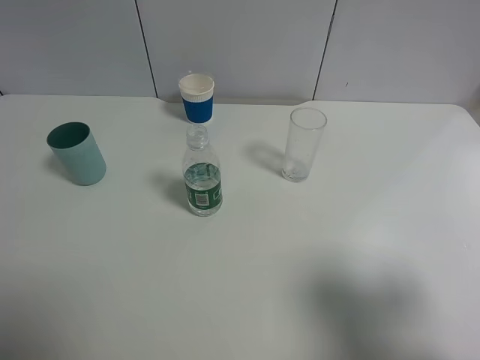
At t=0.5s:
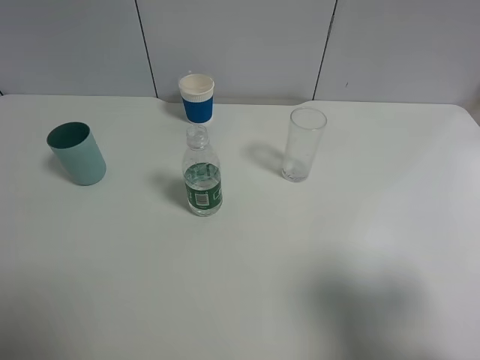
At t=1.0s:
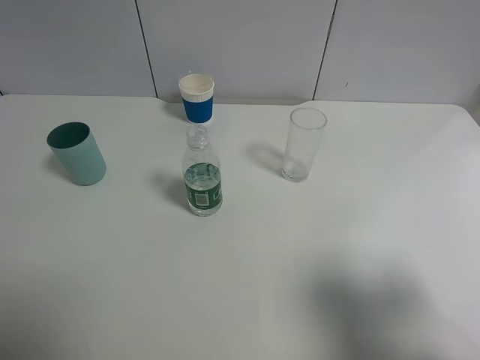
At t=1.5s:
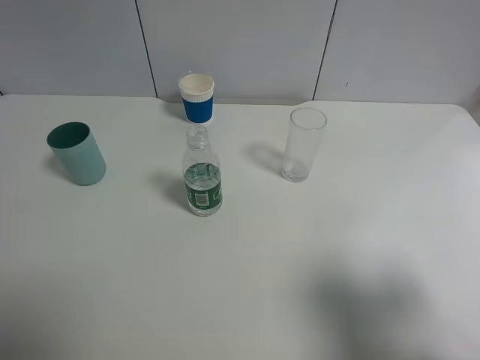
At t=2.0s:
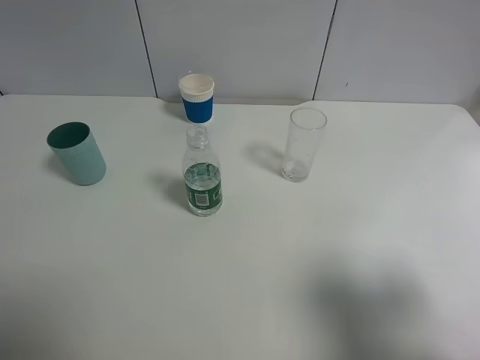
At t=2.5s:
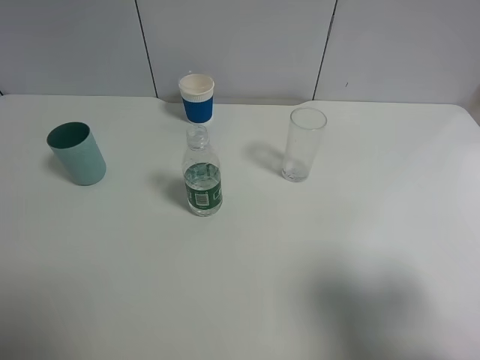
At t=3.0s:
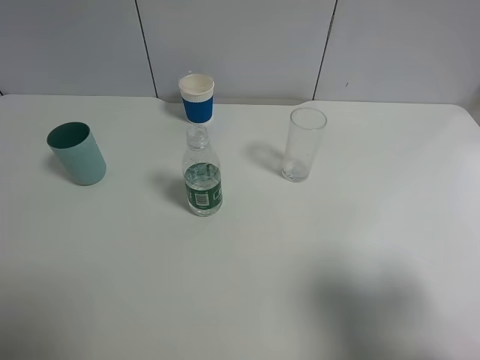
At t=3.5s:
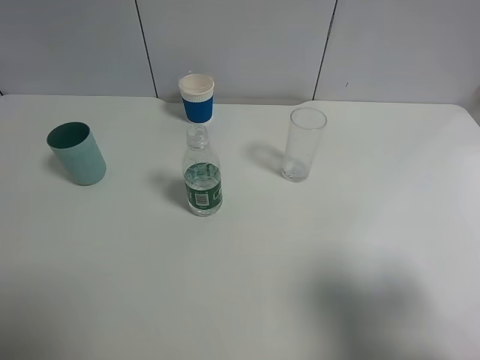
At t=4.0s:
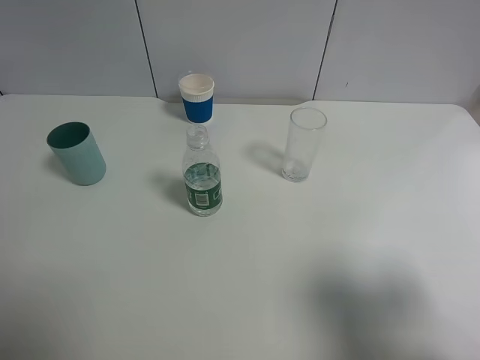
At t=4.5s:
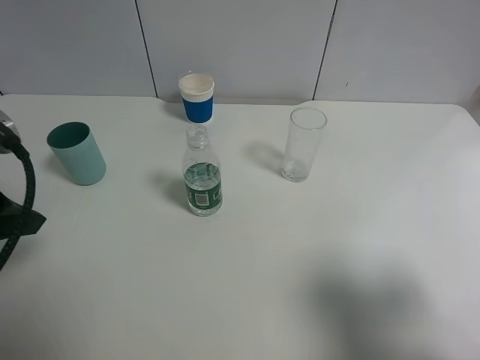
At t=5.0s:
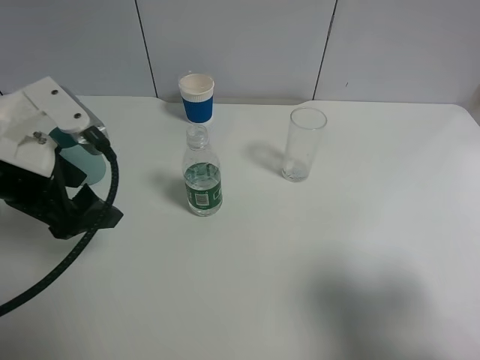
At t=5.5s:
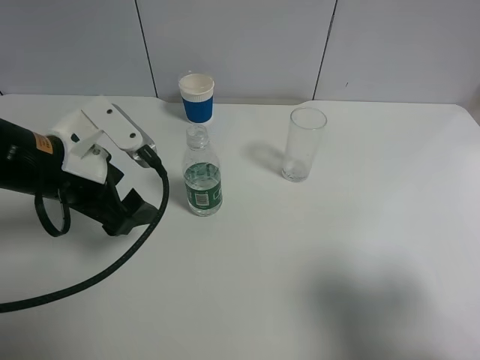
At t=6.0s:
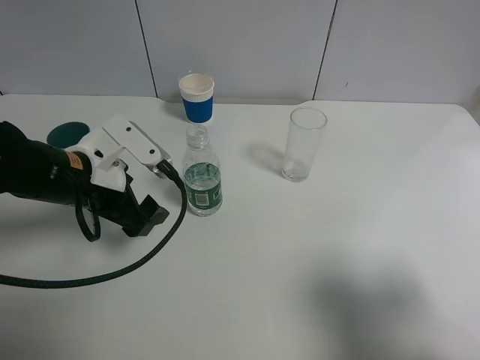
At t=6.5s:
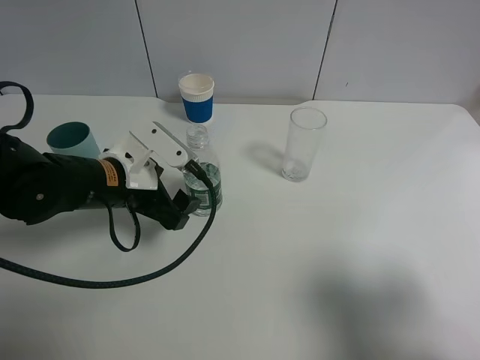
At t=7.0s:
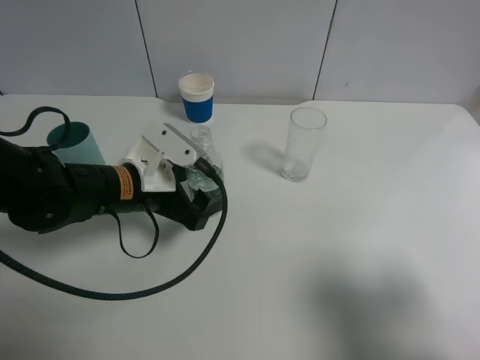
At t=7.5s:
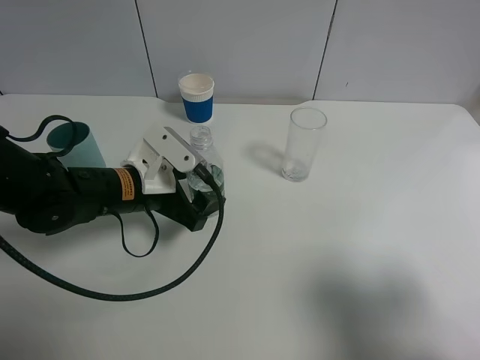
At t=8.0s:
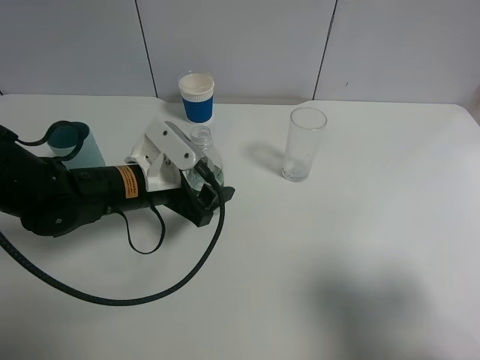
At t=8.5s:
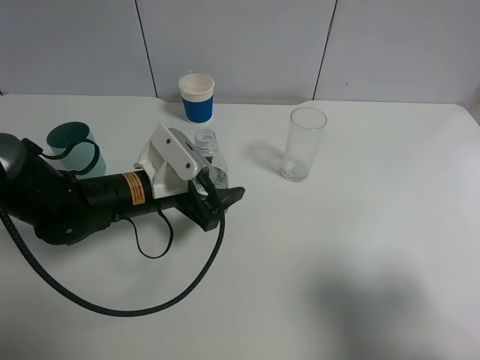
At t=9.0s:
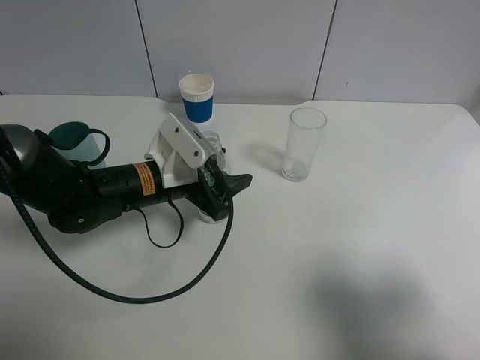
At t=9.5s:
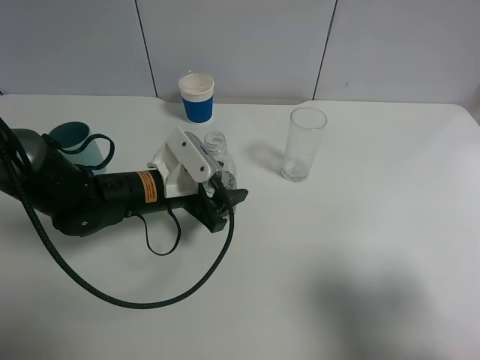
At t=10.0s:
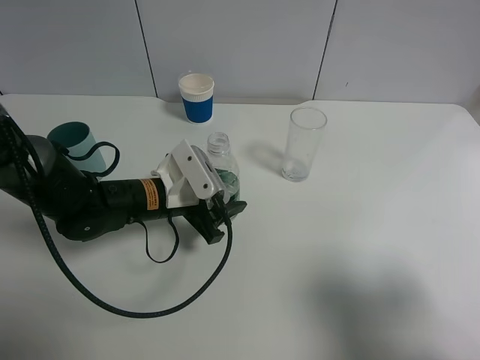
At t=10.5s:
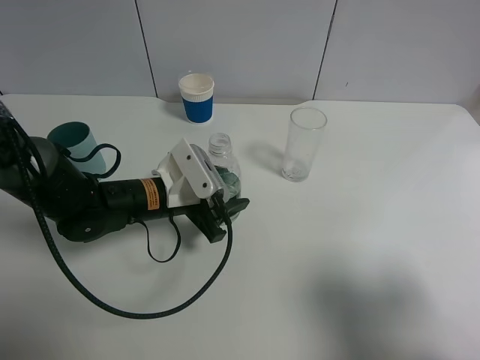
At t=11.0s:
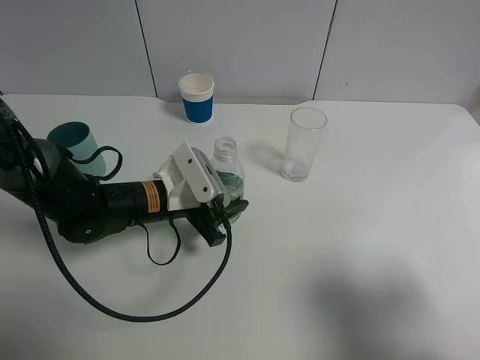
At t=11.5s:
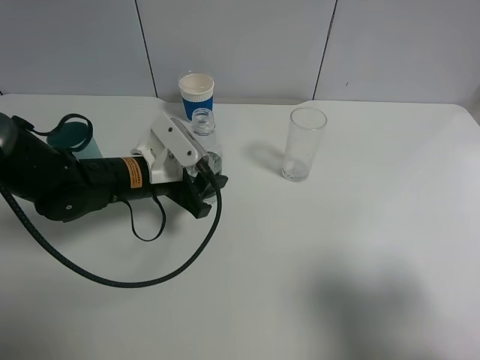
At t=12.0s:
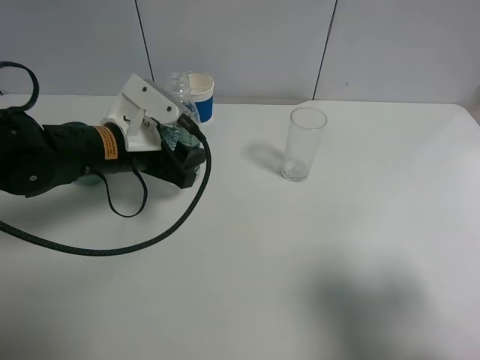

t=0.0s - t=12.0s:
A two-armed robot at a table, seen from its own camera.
Task of the whole recording: use a gripper to hold the bottle of the drink and pour it into a random cup.
Step, t=0.0s - t=10.5s: Grasp the mineral water bottle with the left gripper.
t=0.0s - t=2.0s: The two grippers keep their place.
t=4.0s - t=6.0s: The left gripper is displaced to the right, downward and forward by some 20 cm.
t=6.0s - t=8.0s: The left gripper shifts about 5 cm to the right.
t=8.0s - t=10.0s: The grippers make only small movements.
t=10.0s - t=12.0s: The left gripper goes some 10 cm upward.

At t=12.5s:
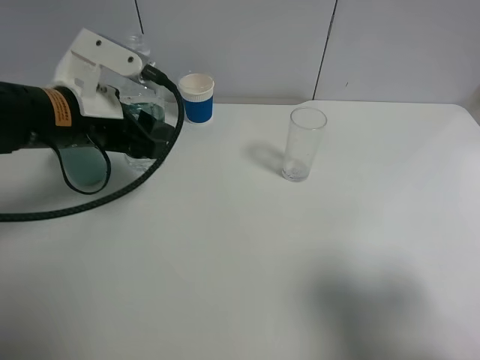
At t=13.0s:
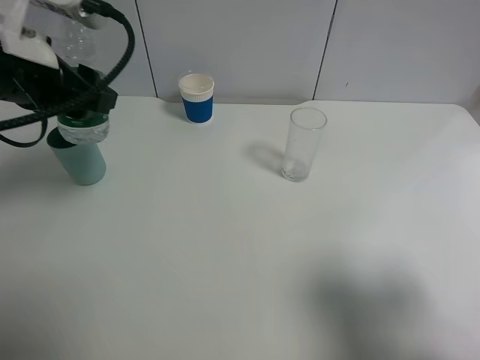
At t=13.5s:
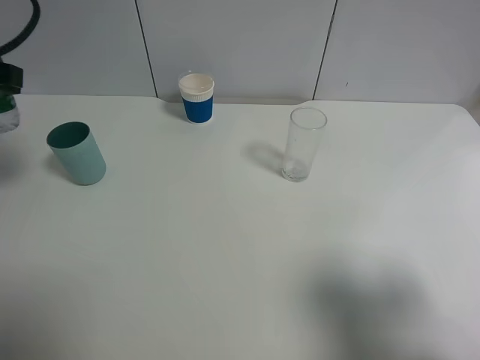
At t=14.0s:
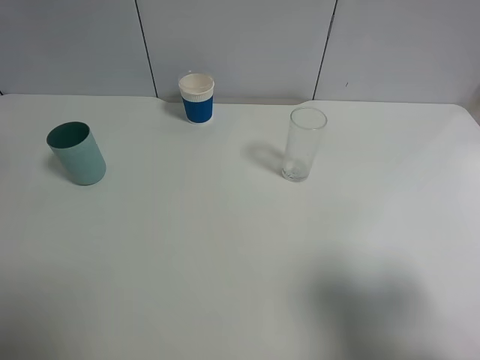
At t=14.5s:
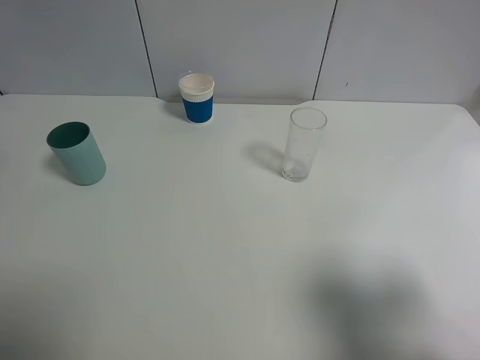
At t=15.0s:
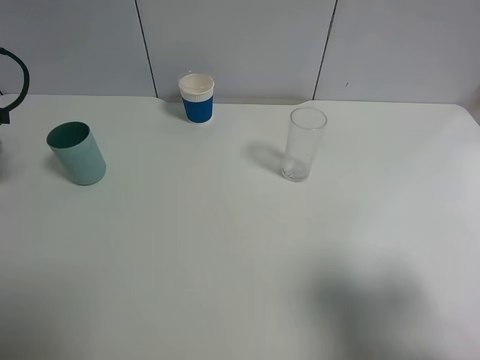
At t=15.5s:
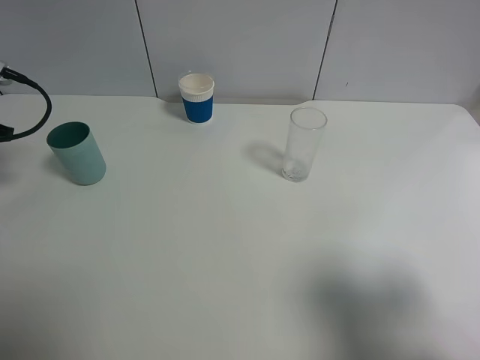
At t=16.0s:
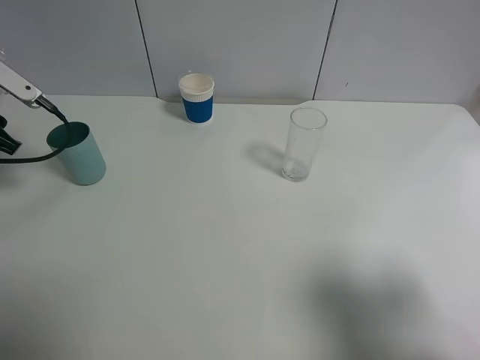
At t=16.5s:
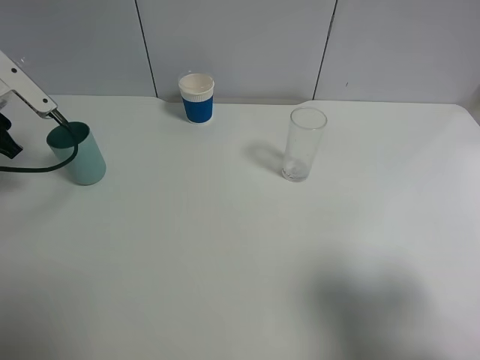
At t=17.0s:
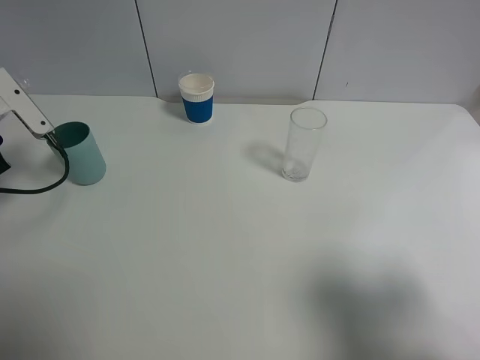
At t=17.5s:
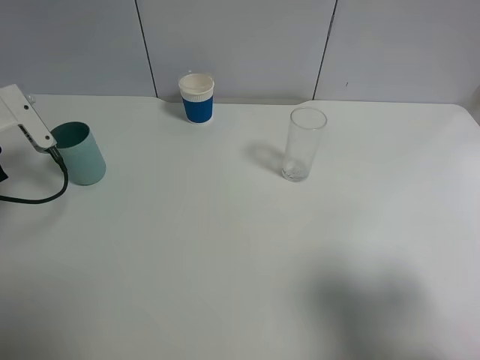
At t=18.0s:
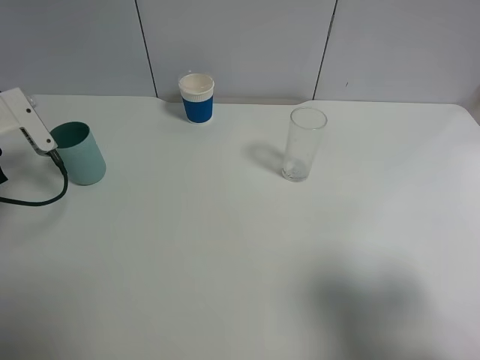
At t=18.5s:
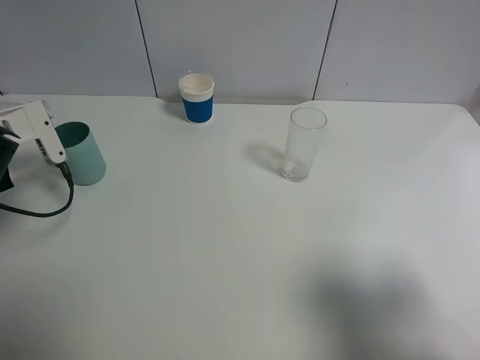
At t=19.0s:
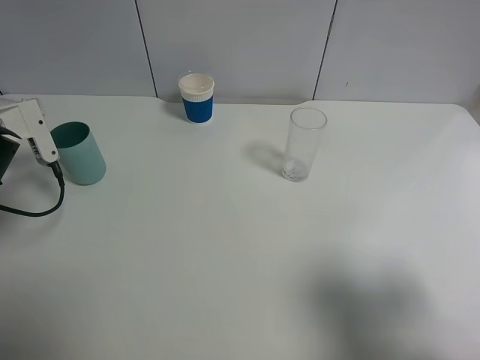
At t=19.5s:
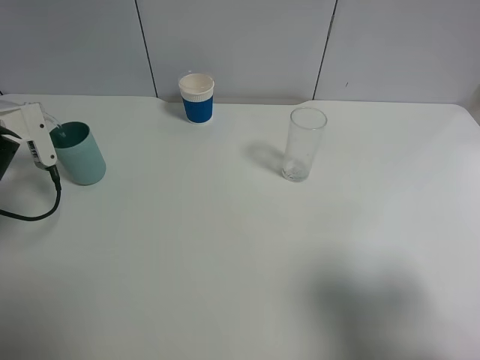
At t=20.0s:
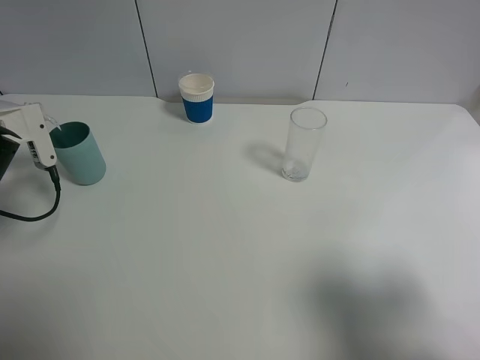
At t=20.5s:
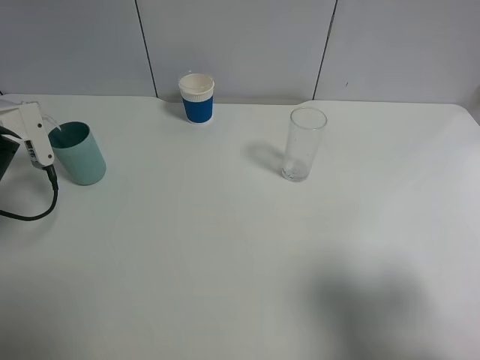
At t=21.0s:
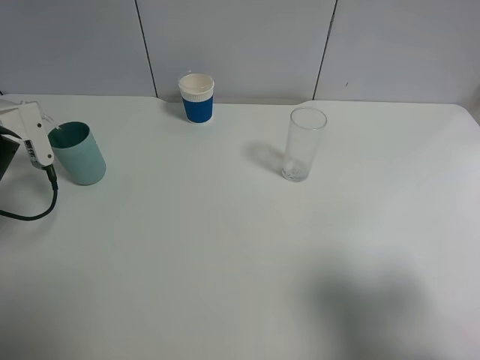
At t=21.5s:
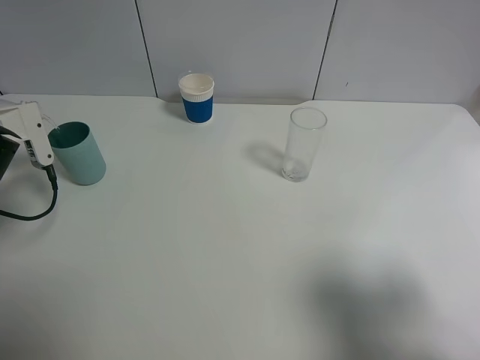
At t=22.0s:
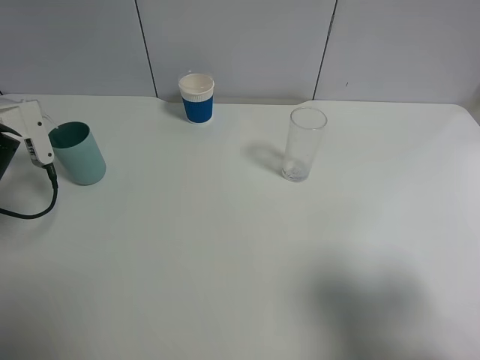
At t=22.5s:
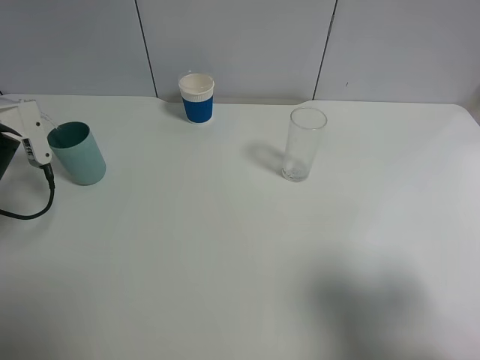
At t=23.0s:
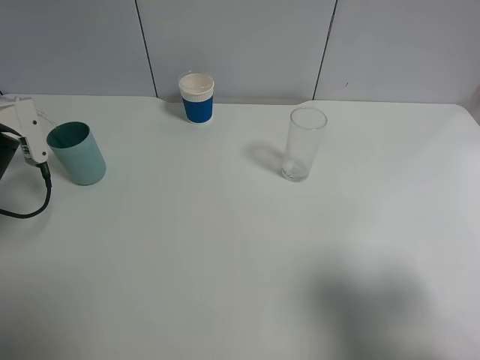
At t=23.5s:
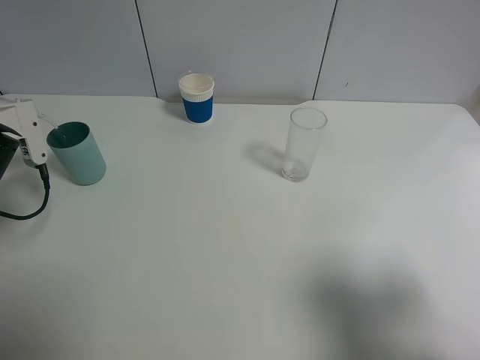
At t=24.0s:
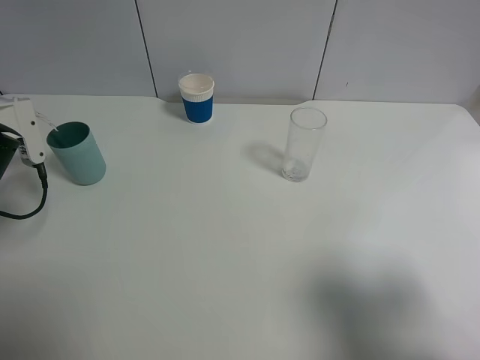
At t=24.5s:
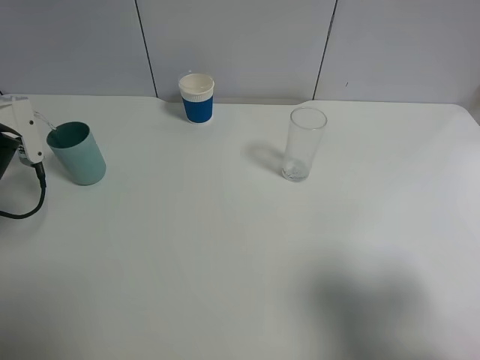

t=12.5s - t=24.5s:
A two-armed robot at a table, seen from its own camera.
Task of the whole recording: use a gripper to hold the bottle of the drink and pour it into a random cup.
t=12.5s - t=14.5s: The left gripper goes approximately 20 cm to the left.
t=14.5s - t=16.5s: The left gripper goes roughly 5 cm downward.
t=18.5s - t=20.5s: The grippers move only a little.
t=20.5s - t=22.5s: Both grippers stay put.
t=22.5s - t=24.5s: Neither gripper changes place.

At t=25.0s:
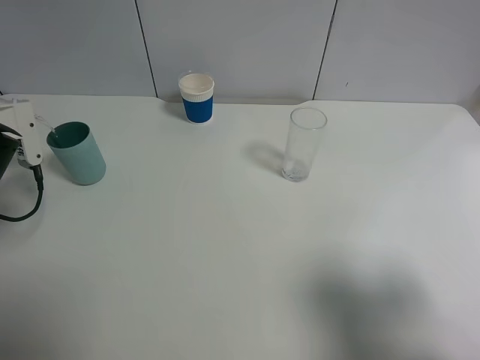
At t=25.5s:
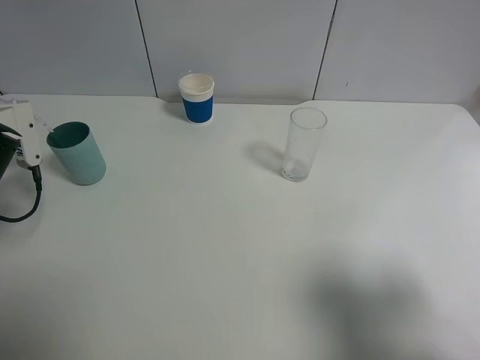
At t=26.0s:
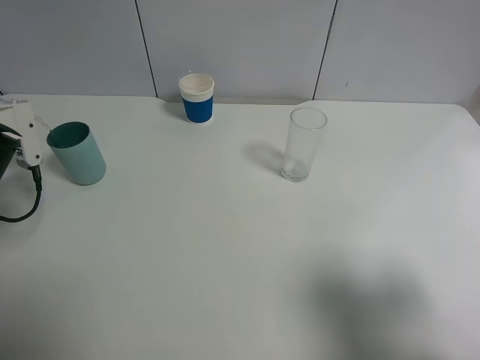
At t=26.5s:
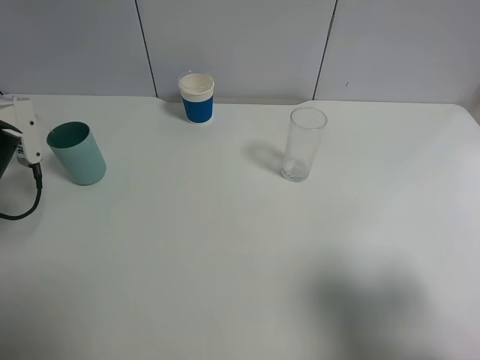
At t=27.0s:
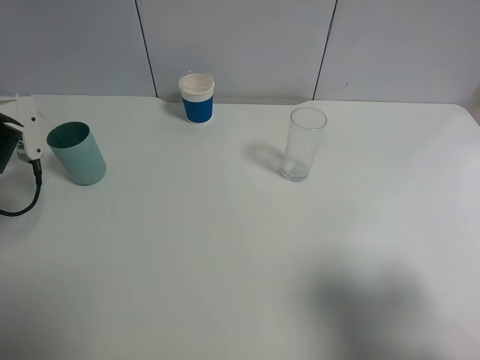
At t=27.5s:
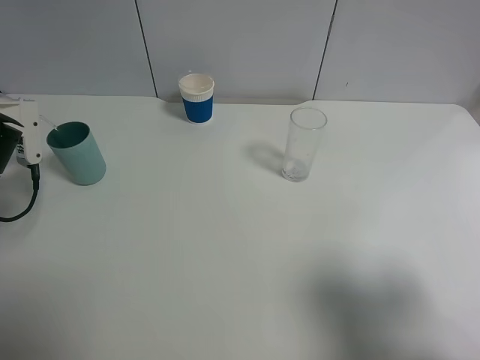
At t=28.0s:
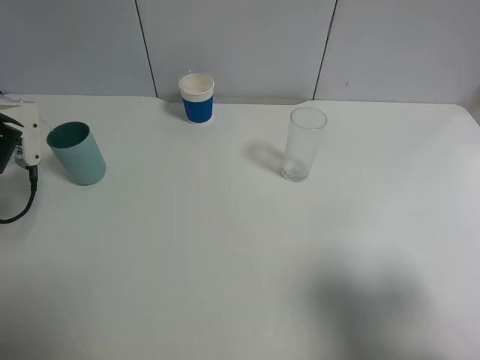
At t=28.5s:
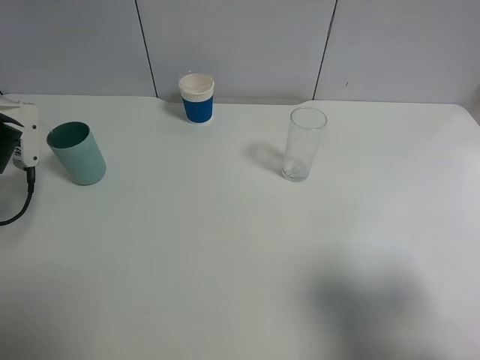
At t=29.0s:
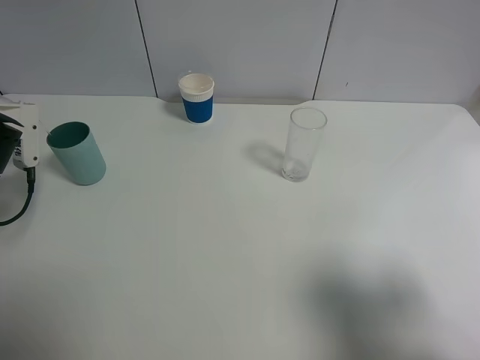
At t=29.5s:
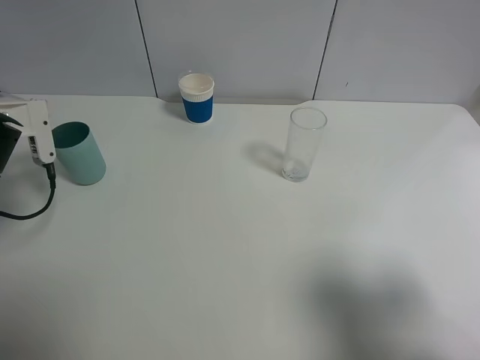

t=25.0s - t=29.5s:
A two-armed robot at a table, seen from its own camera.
Task of the whole recording: use a gripper to hold the bottle of the drink and pour it into a random cup.
t=25.0s - t=27.0s: Both grippers stay put.
t=27.0s - t=29.5s: There are only small adjustments of the grippers.
